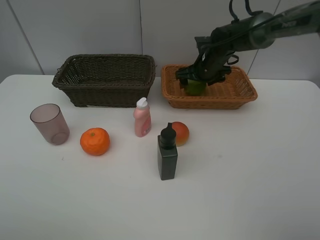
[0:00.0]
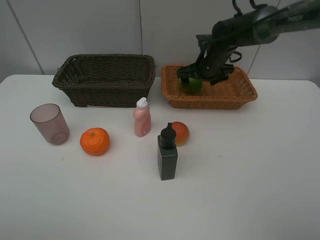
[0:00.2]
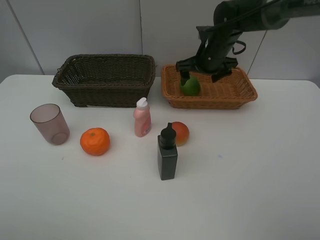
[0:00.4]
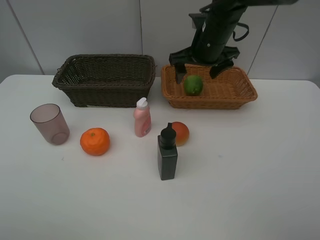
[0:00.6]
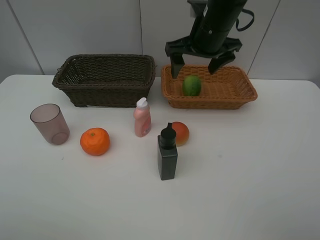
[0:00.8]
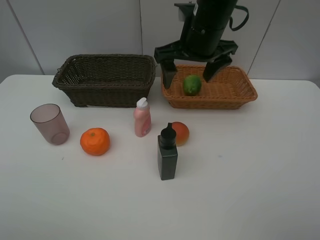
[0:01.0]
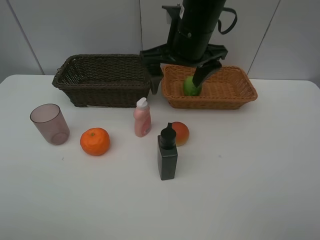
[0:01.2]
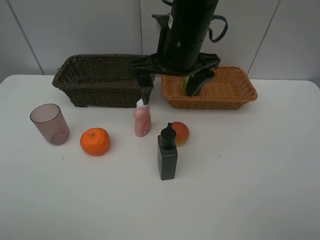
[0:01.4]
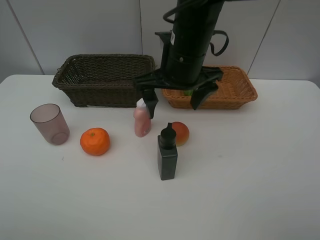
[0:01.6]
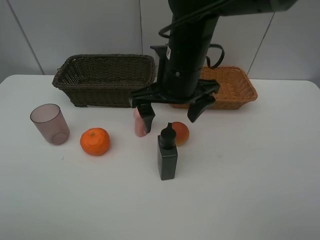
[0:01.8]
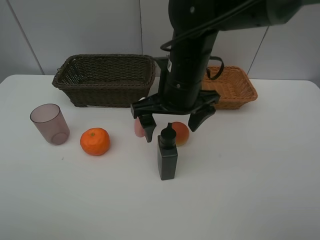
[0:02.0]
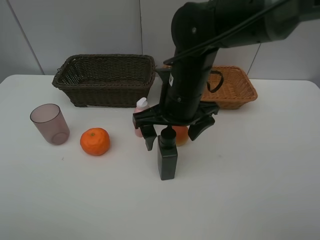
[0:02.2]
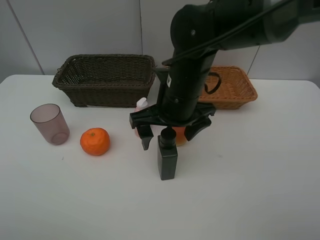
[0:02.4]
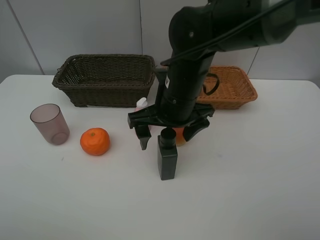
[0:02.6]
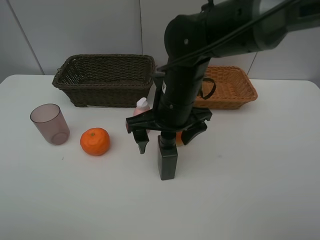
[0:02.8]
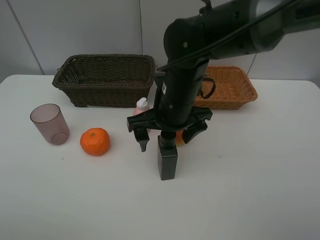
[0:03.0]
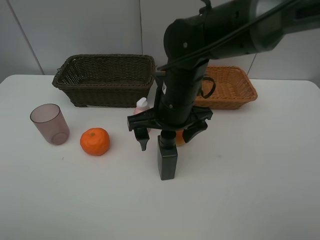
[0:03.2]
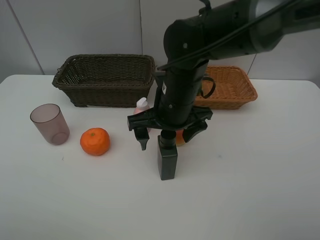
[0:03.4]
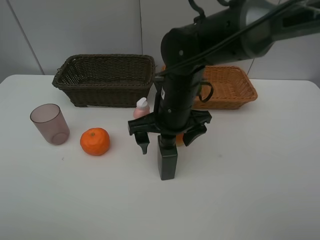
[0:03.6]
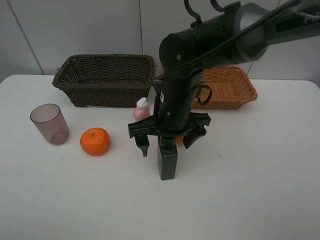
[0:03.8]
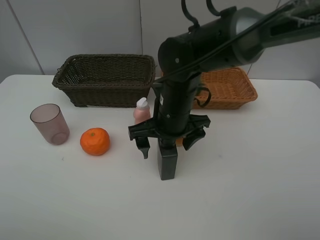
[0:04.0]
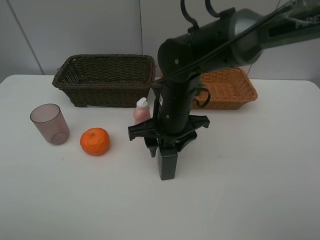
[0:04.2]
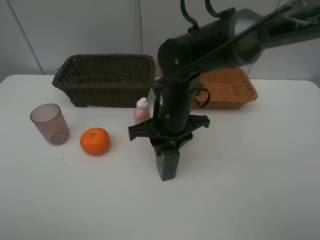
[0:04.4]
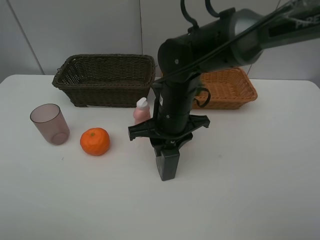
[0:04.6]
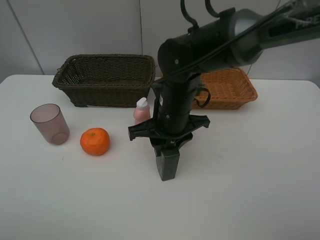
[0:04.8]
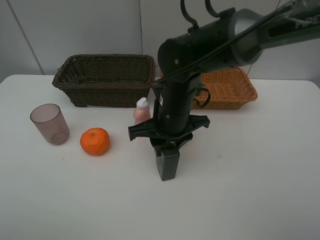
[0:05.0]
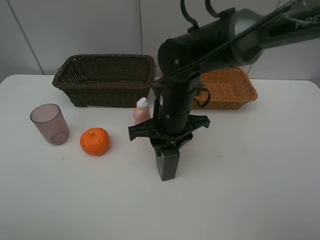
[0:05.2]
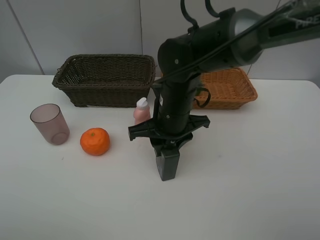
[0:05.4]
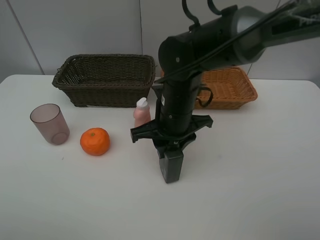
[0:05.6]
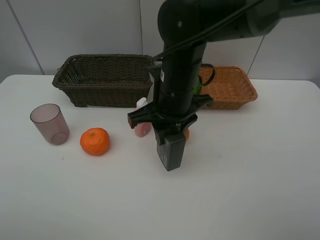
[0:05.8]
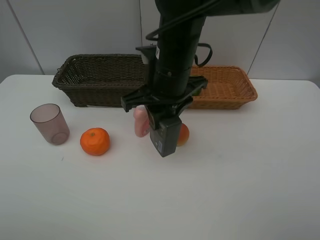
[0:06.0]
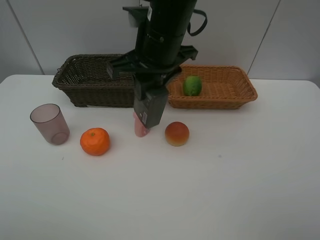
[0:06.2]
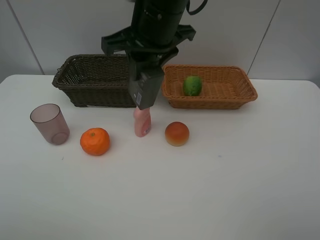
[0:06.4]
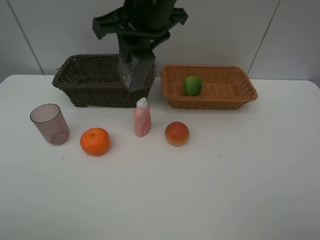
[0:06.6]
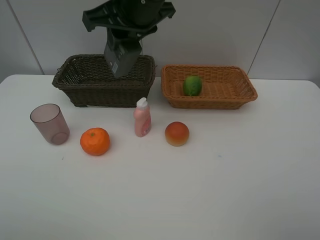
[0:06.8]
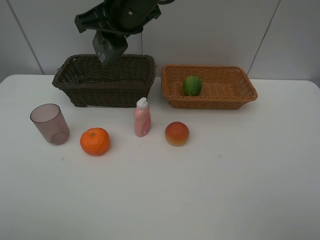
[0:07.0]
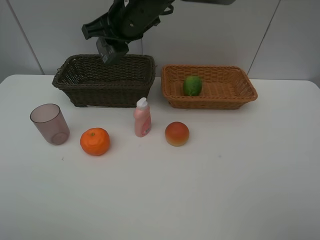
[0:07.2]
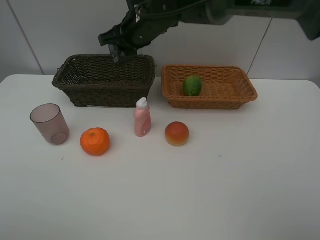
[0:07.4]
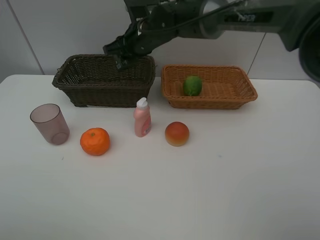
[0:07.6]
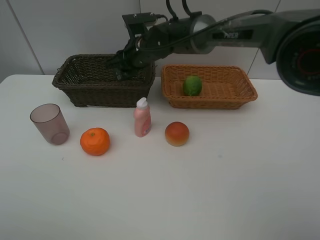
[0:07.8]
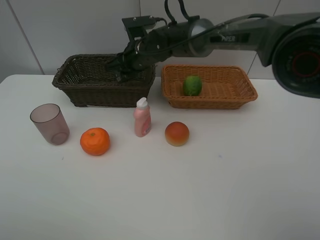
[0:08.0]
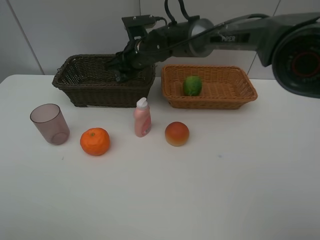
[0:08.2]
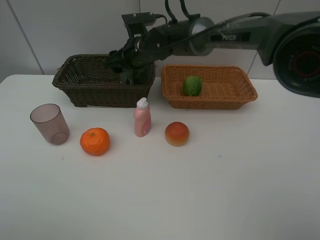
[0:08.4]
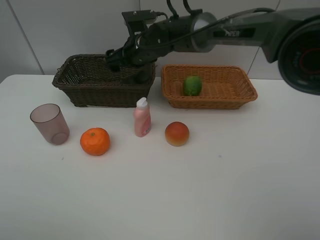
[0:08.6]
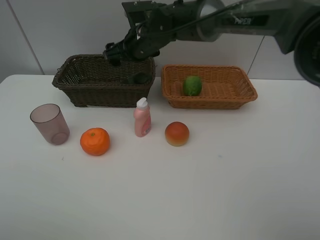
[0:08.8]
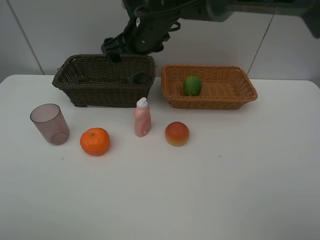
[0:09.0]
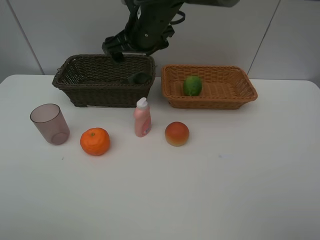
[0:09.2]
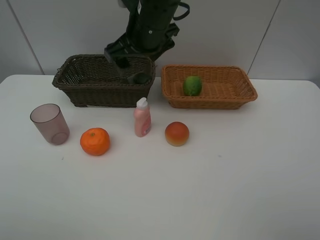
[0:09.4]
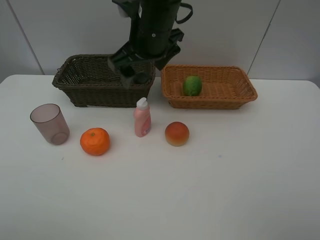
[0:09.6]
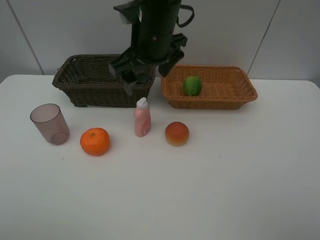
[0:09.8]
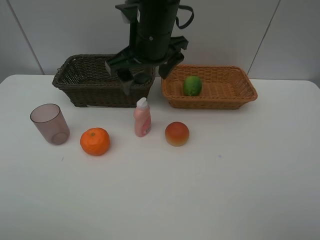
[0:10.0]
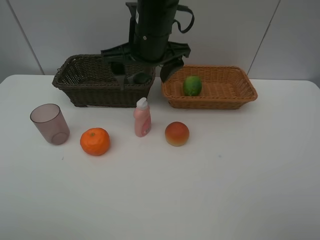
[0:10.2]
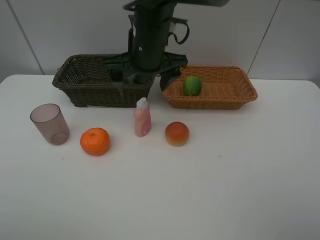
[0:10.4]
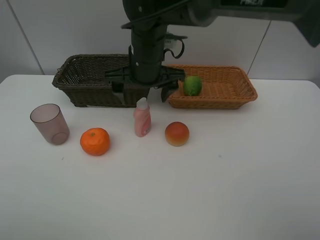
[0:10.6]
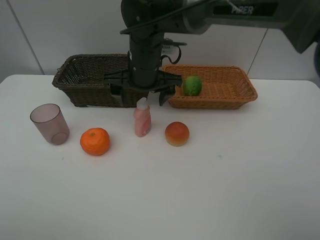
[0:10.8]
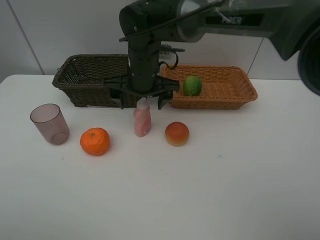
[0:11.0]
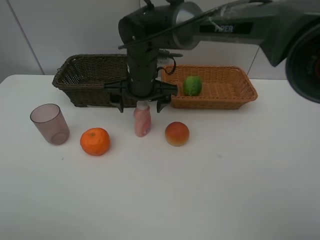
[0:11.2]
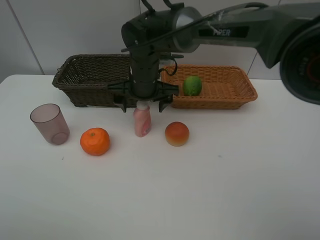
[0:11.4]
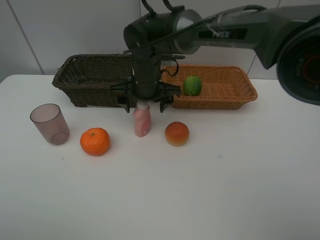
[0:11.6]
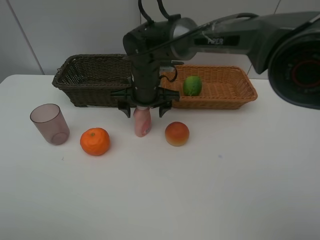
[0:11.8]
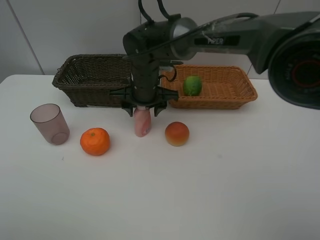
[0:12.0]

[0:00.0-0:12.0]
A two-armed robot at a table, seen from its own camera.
Task of the whole recording: place multiple objects separately in different baskets.
0:00.0 to 0:01.6: The right gripper is displaced backward, upward and to the left by about 25 cm.
0:01.6 to 0:03.0: The right gripper shifts about 5 cm downward.
0:03.0 to 0:04.4: The right gripper closes.
0:04.4 to 0:06.0: The right gripper travels upward by approximately 10 cm.
0:06.0 to 0:07.6: The right gripper is displaced forward by about 15 cm.
0:07.6 to 0:09.0: The right gripper changes place by some 5 cm, and opens its fingers.
0:09.0 to 0:10.4: The right gripper is displaced backward by some 5 cm.
0:10.4 to 0:12.0: The right gripper goes some 10 cm downward, and closes up.

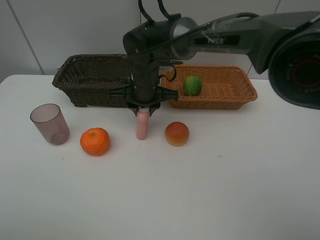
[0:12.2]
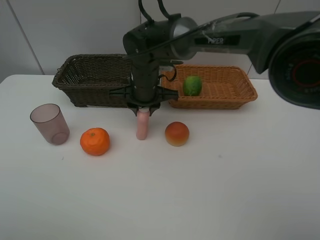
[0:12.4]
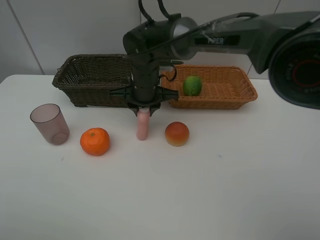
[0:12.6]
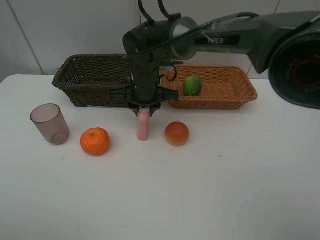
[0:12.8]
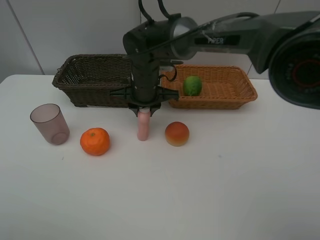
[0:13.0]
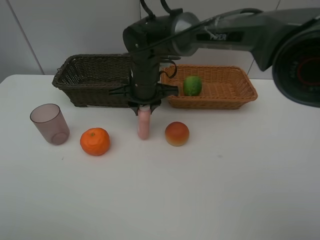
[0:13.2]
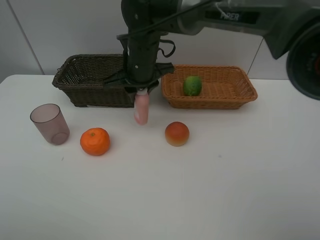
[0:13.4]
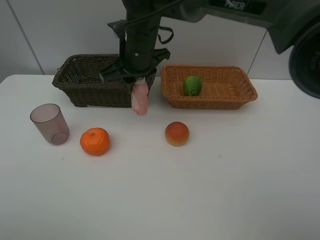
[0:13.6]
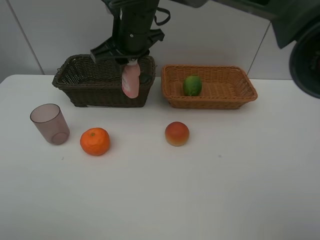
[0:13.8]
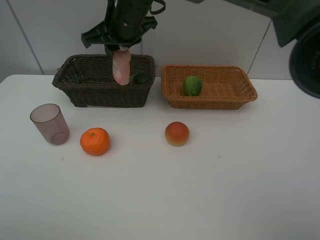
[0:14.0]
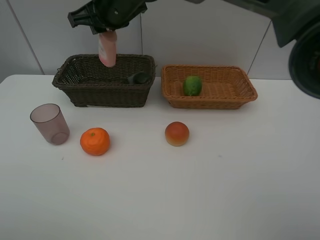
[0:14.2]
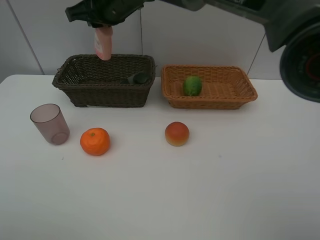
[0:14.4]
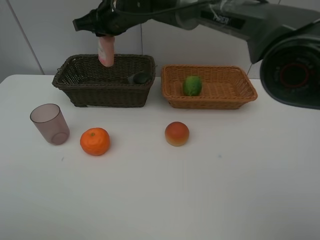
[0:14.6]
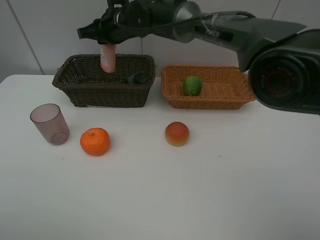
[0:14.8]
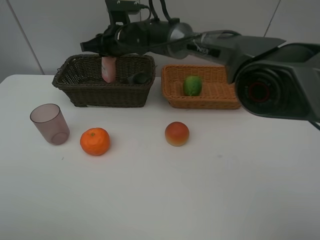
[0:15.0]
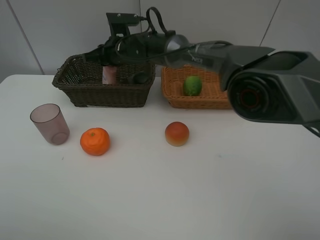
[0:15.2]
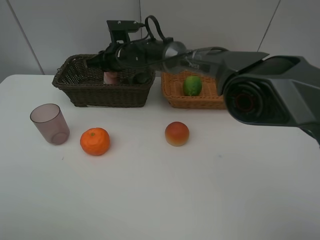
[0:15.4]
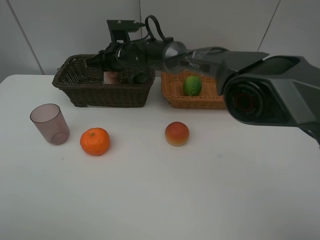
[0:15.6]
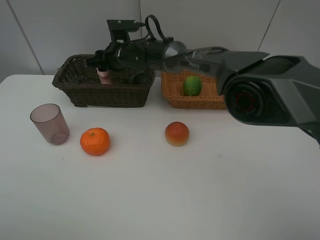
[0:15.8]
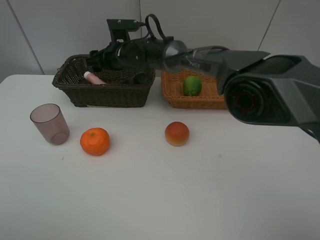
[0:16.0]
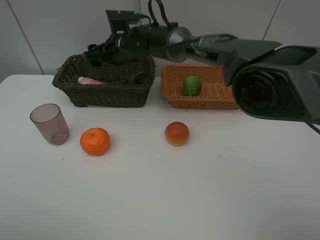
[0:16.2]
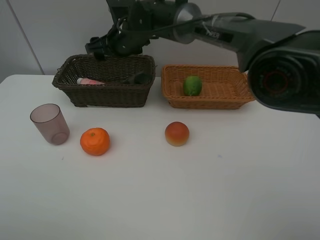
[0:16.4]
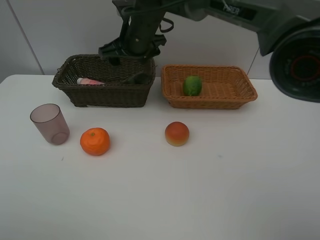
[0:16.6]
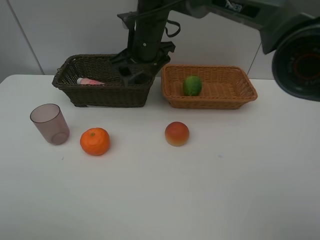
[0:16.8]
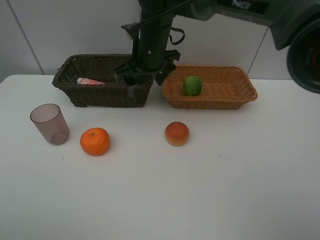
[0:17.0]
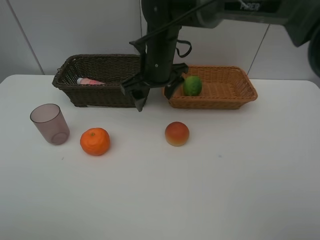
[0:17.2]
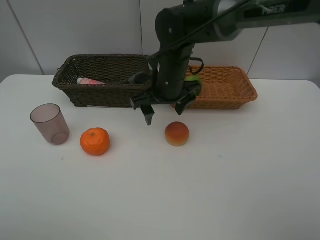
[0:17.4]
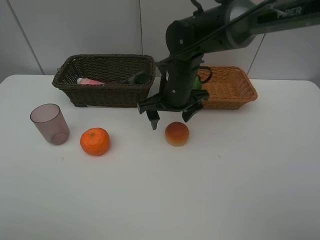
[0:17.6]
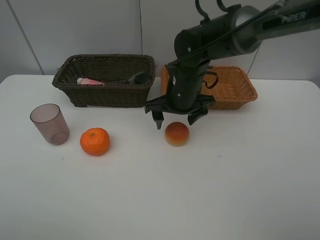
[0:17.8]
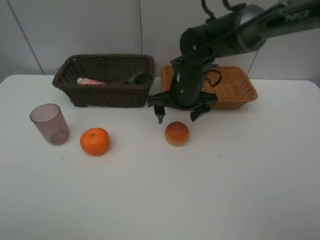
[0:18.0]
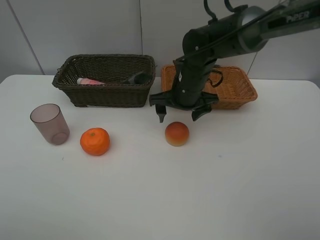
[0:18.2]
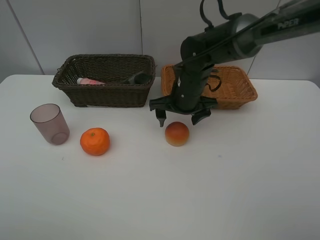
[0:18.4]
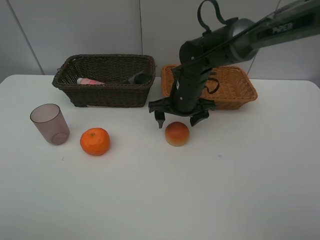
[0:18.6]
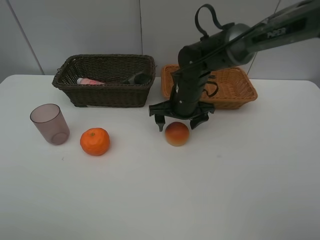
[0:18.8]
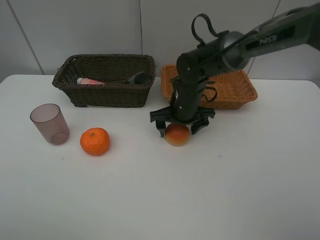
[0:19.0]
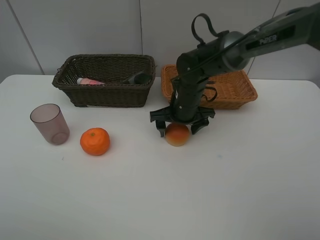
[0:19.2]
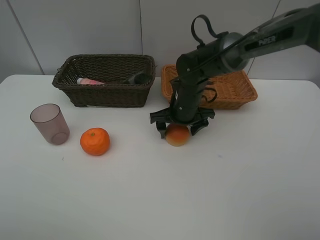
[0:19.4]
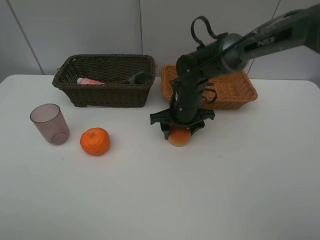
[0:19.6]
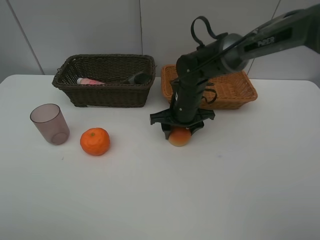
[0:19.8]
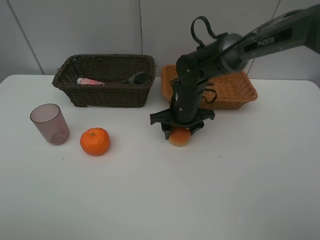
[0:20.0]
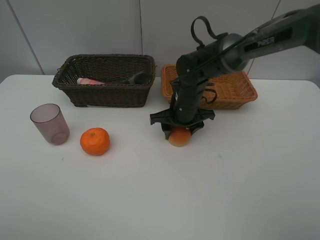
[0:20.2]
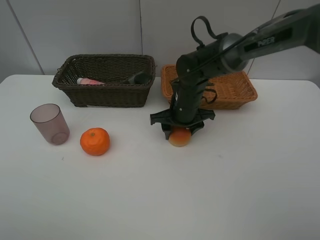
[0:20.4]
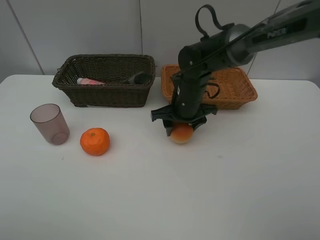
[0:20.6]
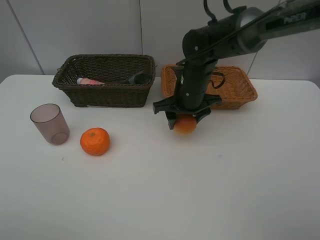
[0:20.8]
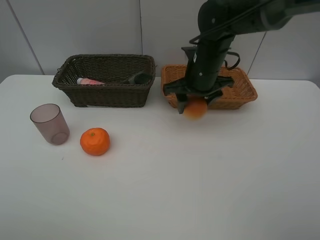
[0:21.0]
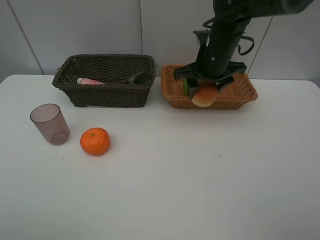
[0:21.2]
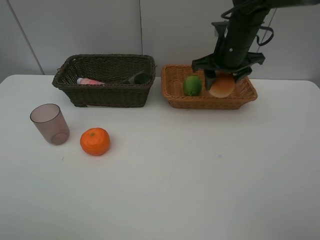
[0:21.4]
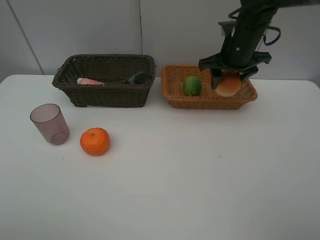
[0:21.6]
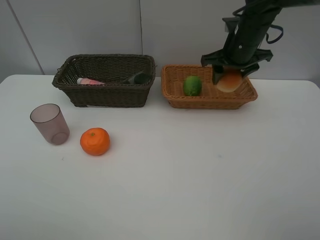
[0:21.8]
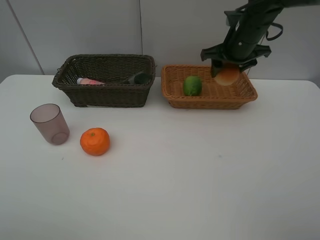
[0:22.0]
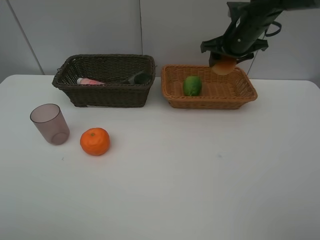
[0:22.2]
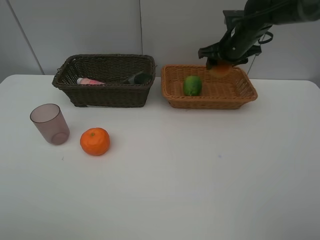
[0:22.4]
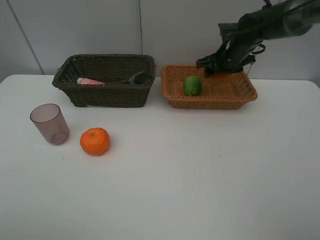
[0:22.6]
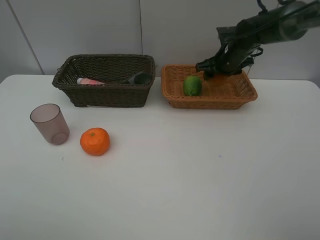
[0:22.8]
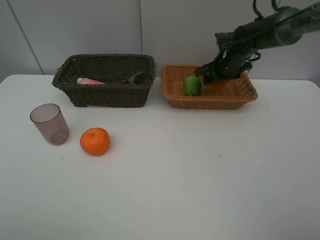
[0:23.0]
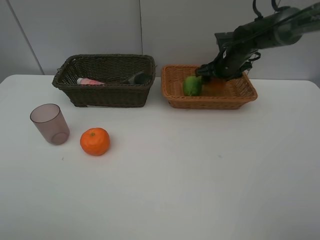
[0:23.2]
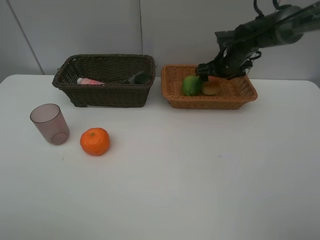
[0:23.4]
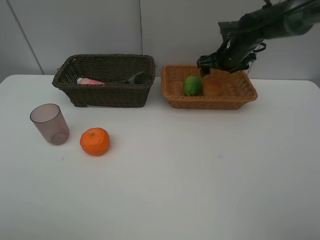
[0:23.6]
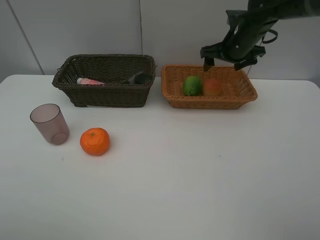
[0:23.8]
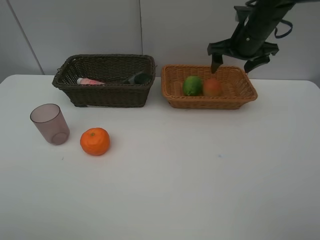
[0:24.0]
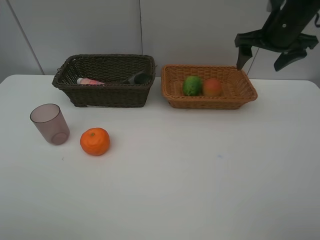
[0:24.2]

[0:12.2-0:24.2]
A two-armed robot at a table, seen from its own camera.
Task of the whole recording: place multiple objects separately in different baskets.
0:12.2 to 0:13.8: The right gripper shifts approximately 10 cm upward.
0:13.8 to 0:15.2: The right gripper goes roughly 15 cm downward and forward.
0:15.2 to 0:16.6: The right gripper heads upward and to the right, covering some 10 cm, and opens its fingers.
0:16.6 to 0:18.2: The right gripper travels to the right, downward and backward by about 15 cm.
0:18.2 to 0:19.8: The right gripper closes.
0:19.8 to 0:21.2: The right gripper heads upward and to the right, covering about 15 cm.
0:21.2 to 0:22.6: The right gripper heads forward and to the right, covering some 10 cm.
0:22.6 to 0:24.2: The right gripper shifts approximately 15 cm upward, backward and to the right, and opens.
